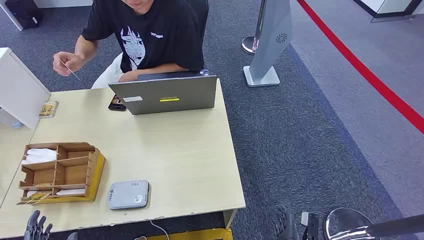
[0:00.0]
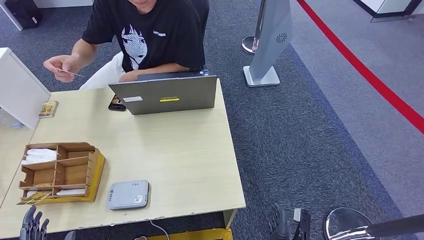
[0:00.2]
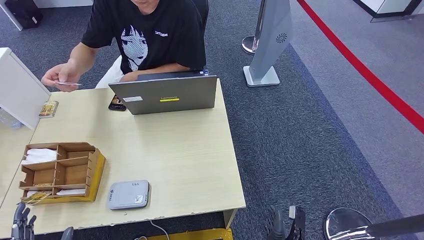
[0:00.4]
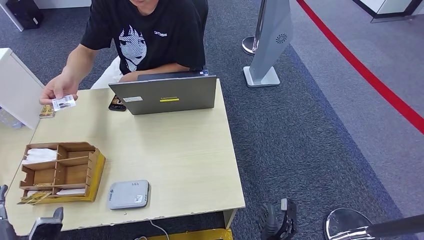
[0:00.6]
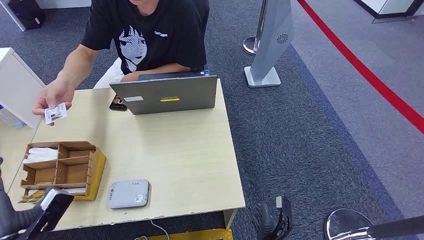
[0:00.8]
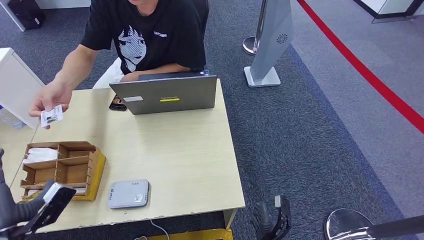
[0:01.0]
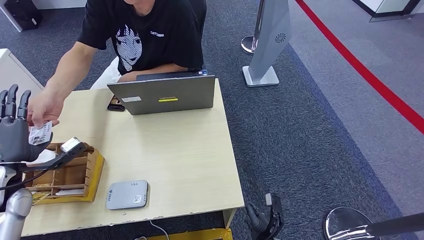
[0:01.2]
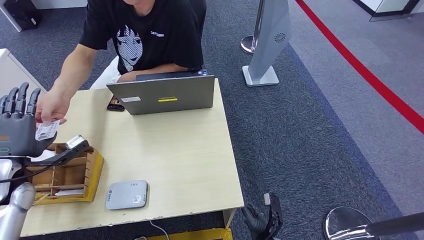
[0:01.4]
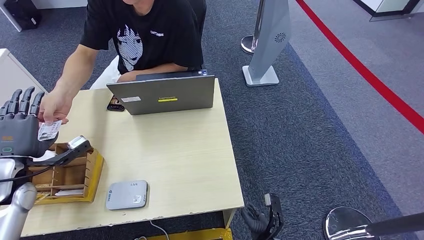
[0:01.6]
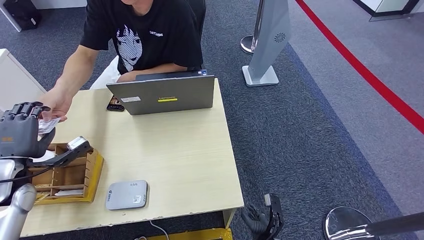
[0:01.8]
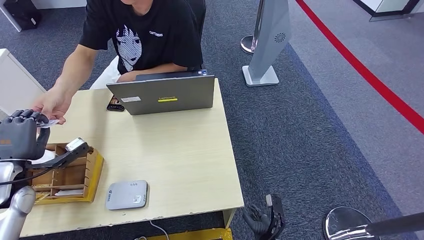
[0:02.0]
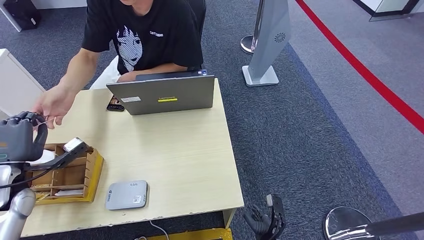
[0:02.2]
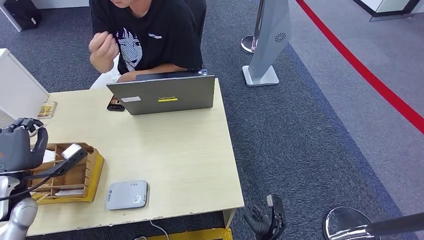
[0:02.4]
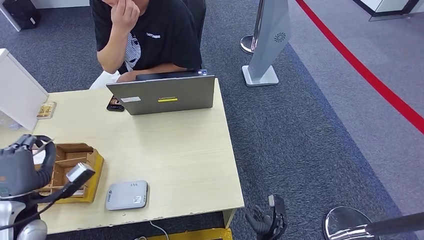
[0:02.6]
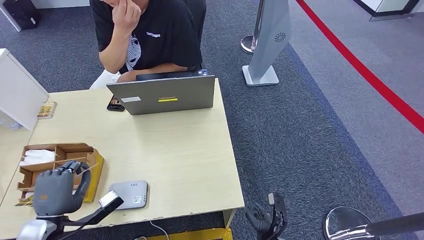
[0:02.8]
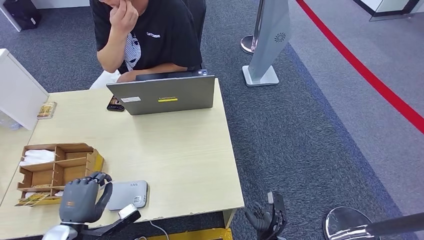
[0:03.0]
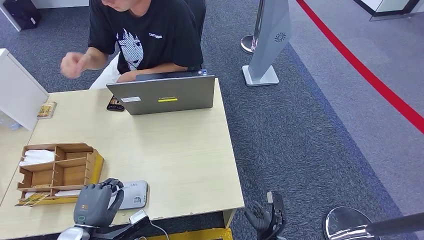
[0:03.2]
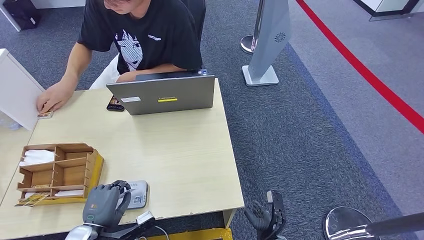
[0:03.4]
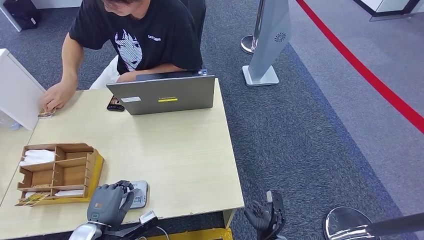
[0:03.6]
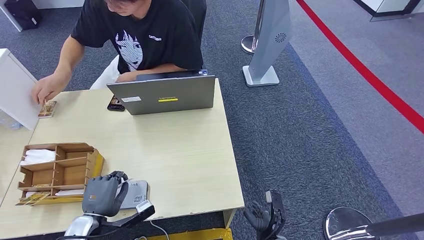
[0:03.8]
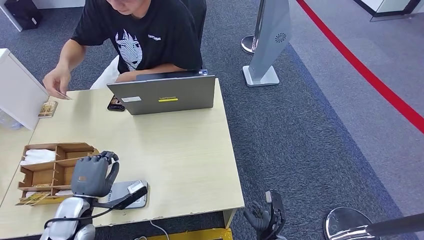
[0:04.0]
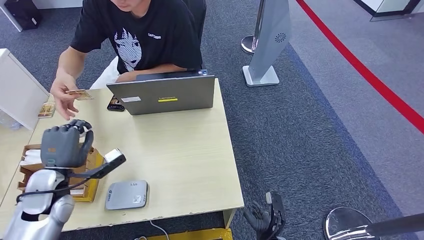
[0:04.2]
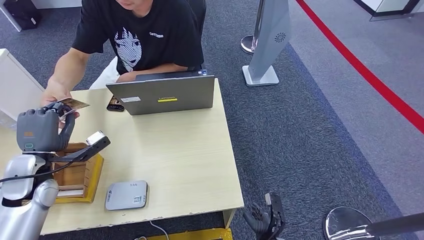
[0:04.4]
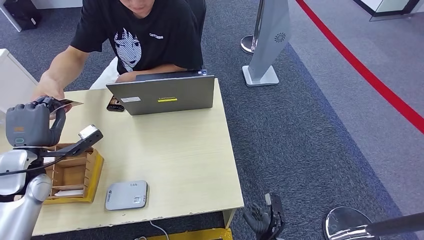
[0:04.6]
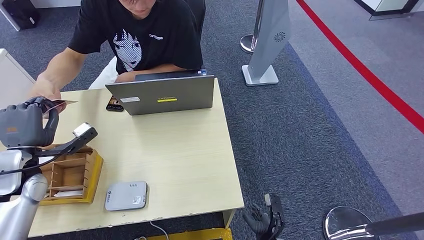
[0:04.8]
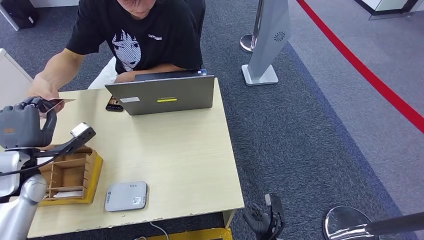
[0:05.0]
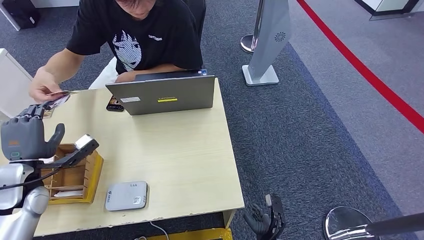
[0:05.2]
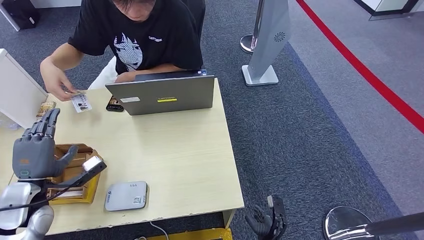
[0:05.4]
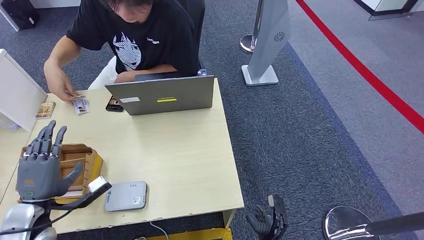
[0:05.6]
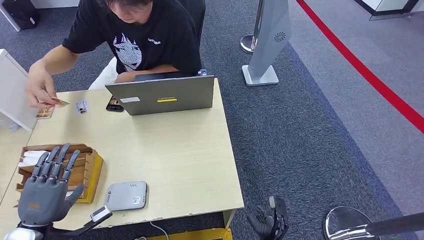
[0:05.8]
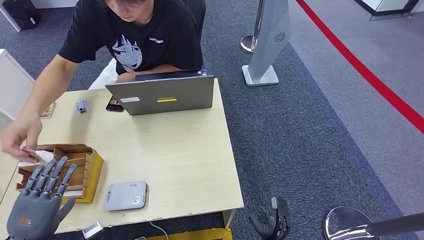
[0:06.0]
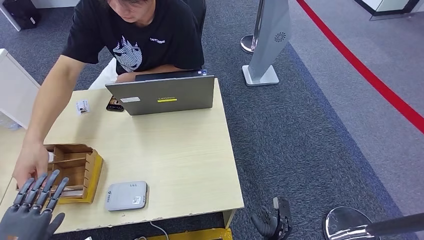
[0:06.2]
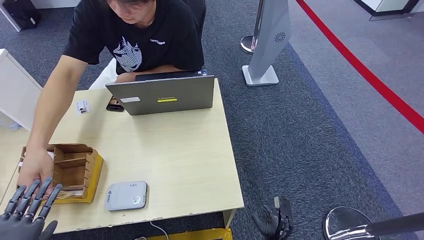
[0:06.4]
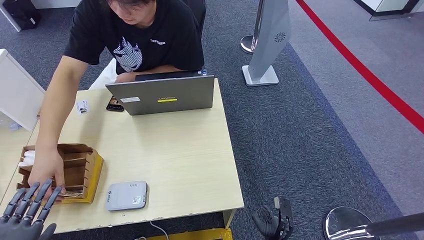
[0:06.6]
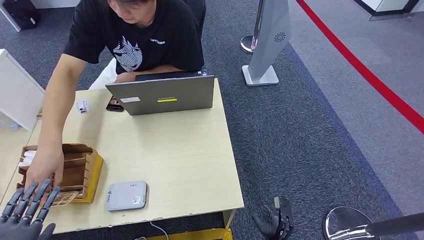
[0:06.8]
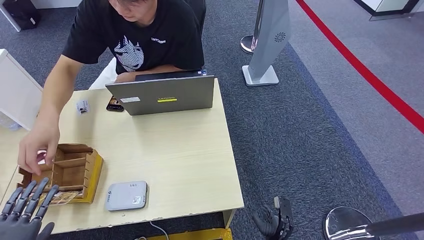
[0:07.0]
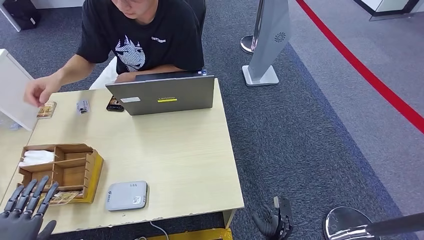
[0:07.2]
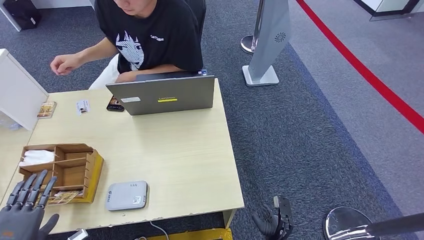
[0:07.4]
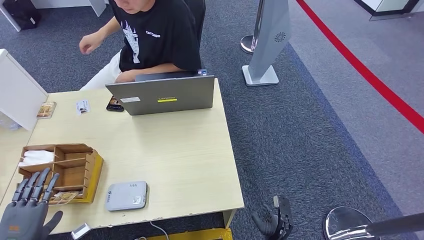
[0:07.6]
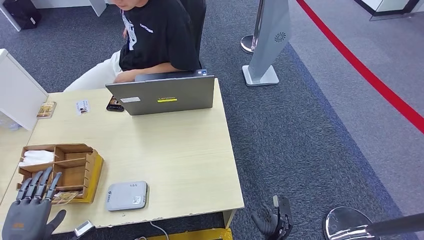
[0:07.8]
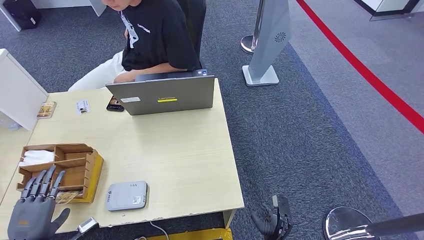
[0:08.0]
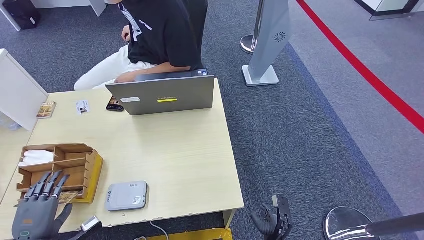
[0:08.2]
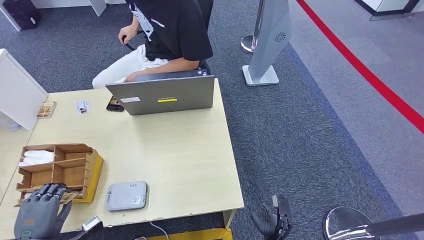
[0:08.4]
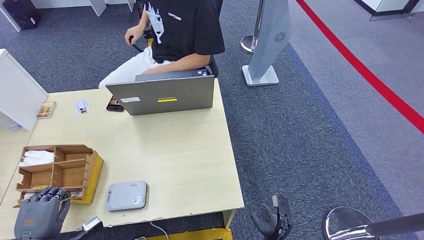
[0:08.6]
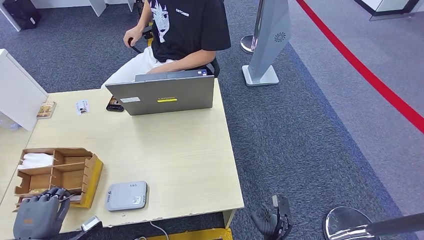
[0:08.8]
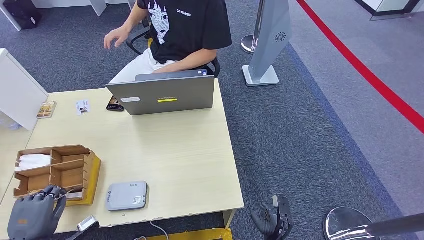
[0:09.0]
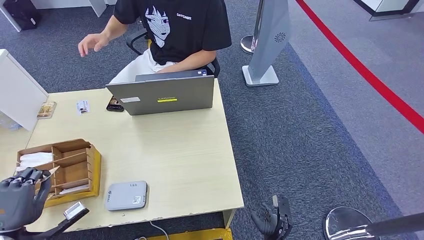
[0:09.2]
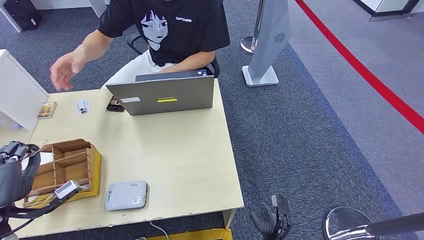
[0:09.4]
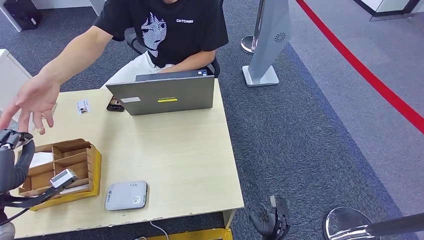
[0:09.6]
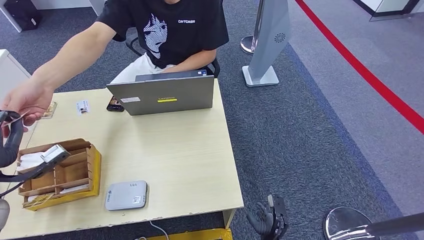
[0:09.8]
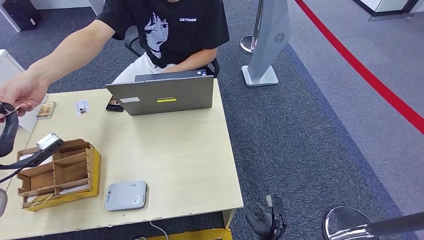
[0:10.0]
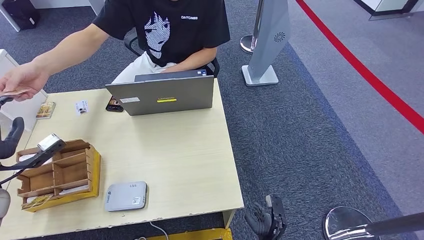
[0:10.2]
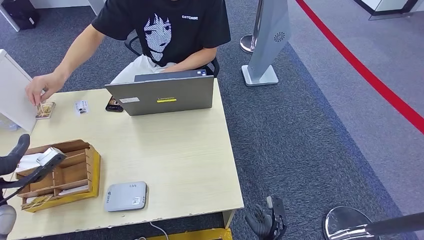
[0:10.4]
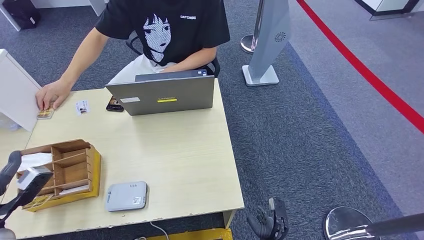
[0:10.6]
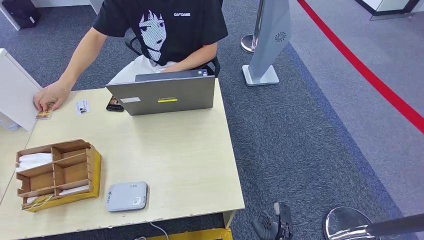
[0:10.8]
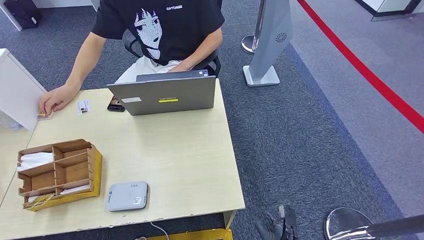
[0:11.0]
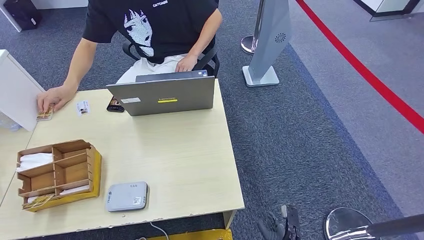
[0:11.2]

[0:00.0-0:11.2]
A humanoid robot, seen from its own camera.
Step, 0:00.0 to 0:03.0: Take the ID card from the person's hand.
Step, 0:03.2 to 0:03.8: Place the ID card on the card reader.
Step, 0:04.0 to 0:06.2: Hand the ID card to the person.
Step, 0:08.4 to 0:09.4: Pick up the room key from the key card box.
Step, 0:09.6 to 0:11.2: Hand the room key to the person.
0:01.6 to 0:03.2: The left hand shifts some 25 cm backward, to the right and downward.
0:03.2 to 0:04.8: The left hand travels forward, upward and to the left by about 25 cm.
0:04.8 to 0:06.4: The left hand is displaced backward by some 25 cm.
0:06.4 to 0:08.0: The left hand shifts about 5 cm forward.
0:08.0 to 0:09.6: The left hand heads upward and forward, covering approximately 15 cm.
0:09.6 to 0:11.2: The left hand is displaced backward by roughly 15 cm.

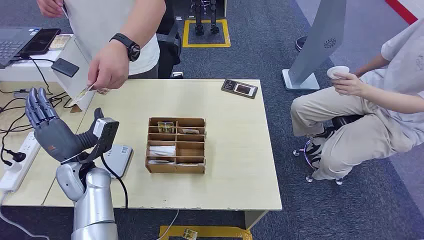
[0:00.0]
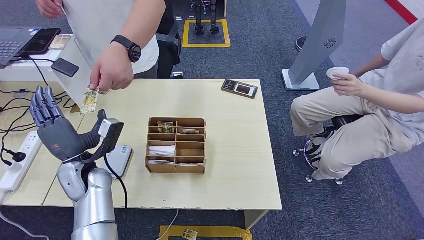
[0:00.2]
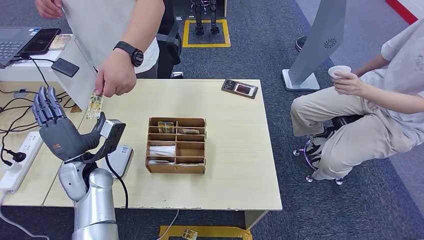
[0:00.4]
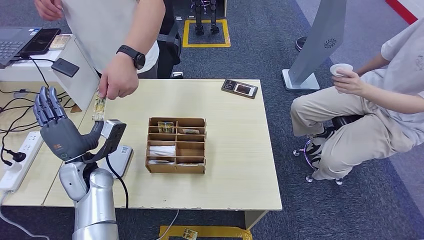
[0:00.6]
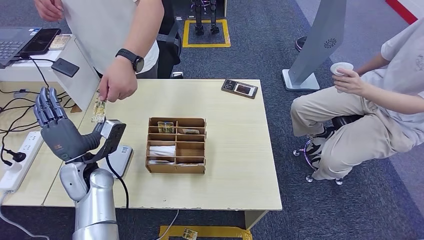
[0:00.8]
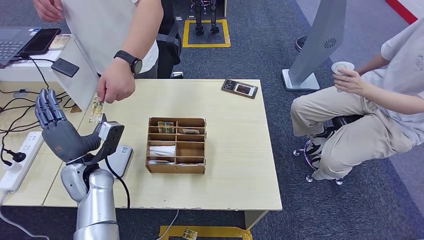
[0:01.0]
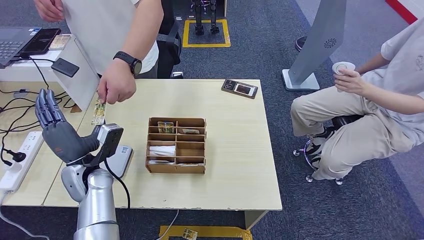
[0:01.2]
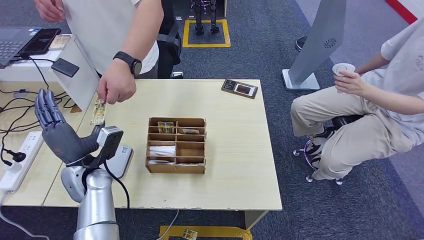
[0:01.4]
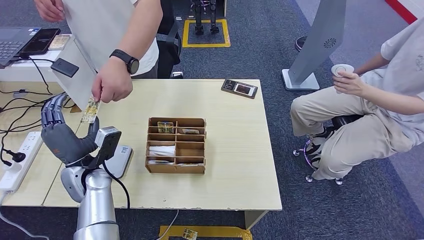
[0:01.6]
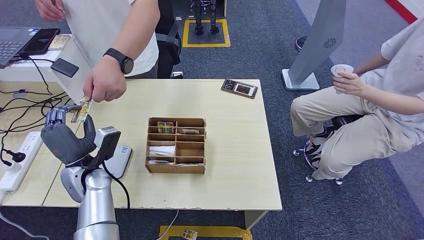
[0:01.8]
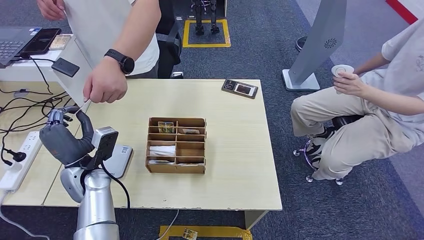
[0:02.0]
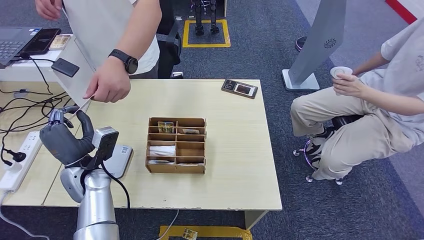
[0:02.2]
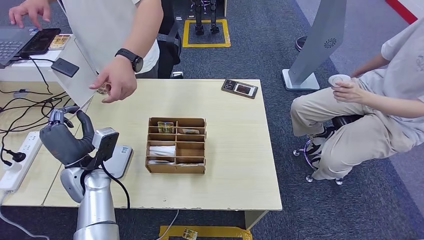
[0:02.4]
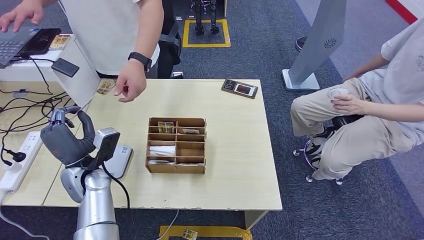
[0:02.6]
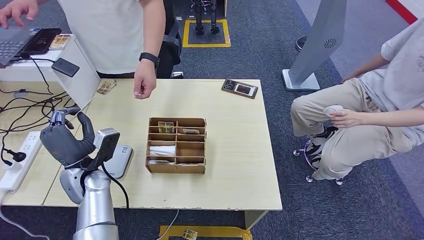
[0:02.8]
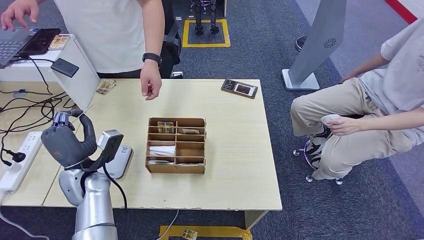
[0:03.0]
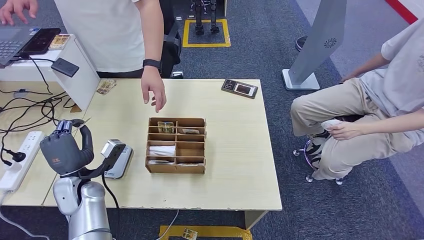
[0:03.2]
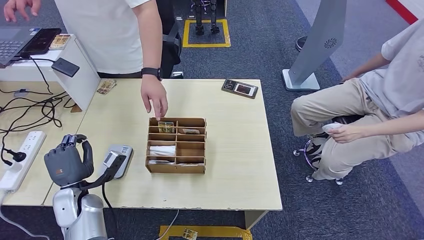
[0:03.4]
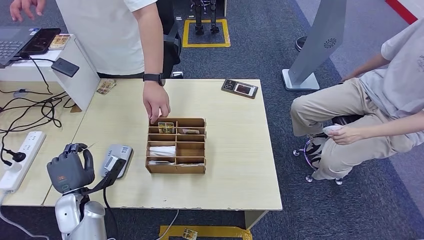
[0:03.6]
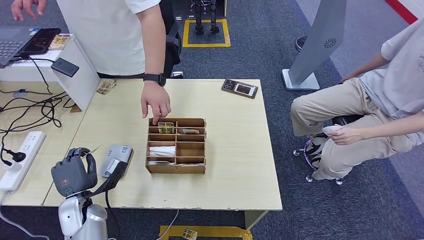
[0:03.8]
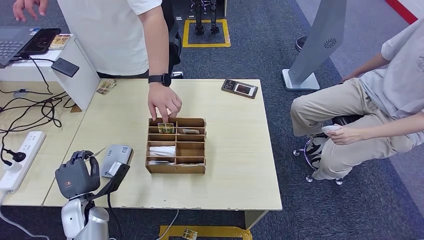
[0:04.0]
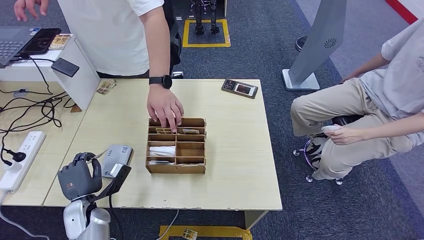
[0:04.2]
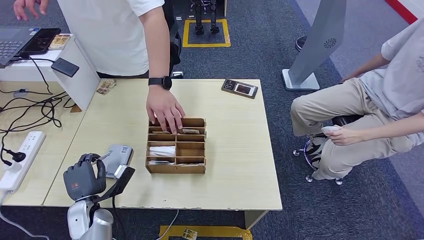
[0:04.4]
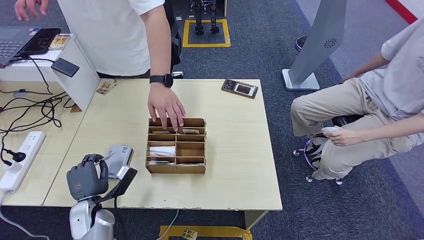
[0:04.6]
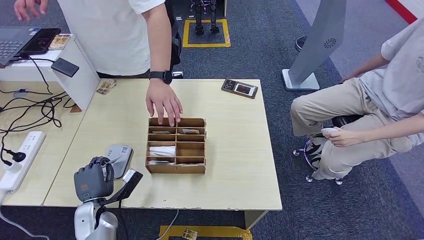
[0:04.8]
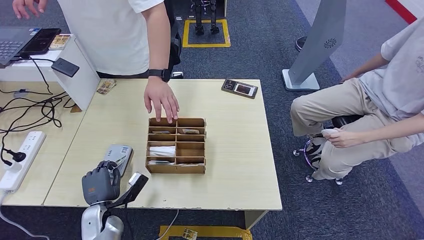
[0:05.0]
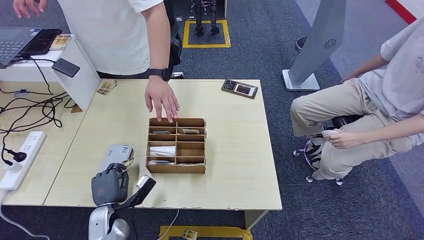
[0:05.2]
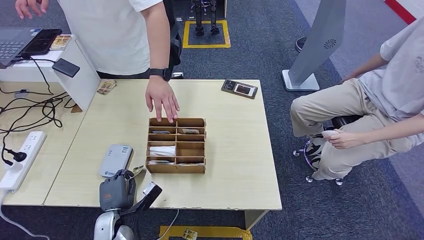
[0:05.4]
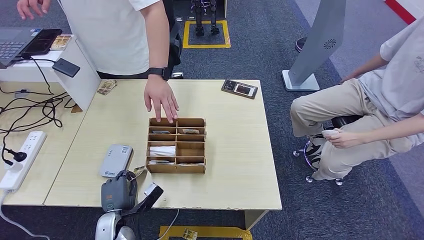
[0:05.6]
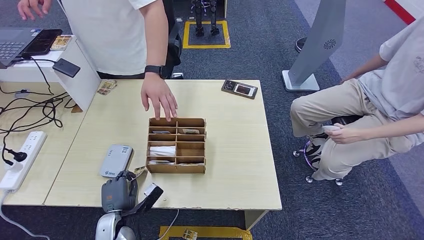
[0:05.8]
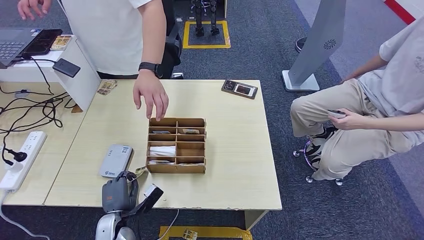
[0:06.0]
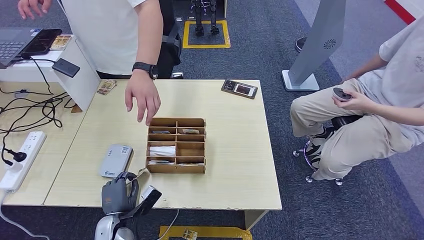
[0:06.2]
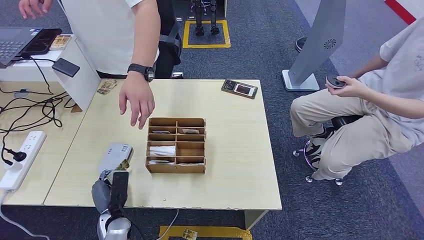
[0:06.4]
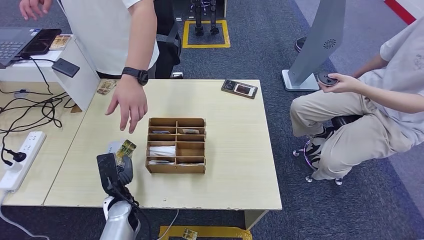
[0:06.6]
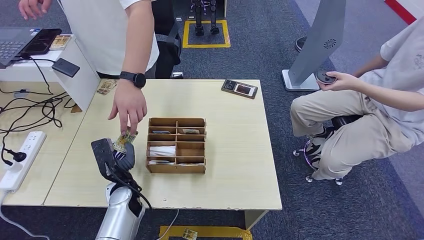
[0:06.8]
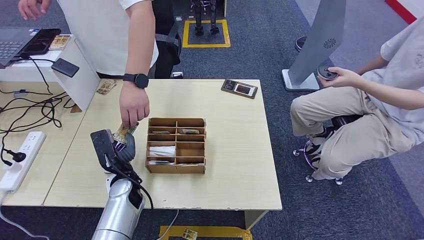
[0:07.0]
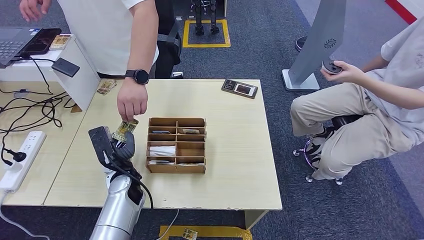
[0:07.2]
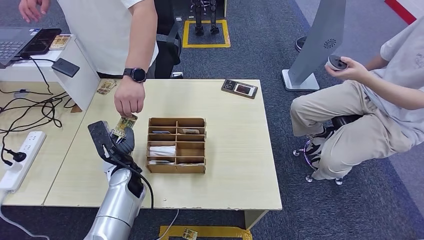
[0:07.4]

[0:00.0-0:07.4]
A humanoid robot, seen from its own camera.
Step, 0:00.0 to 0:02.4: Take the ID card from the person's hand.
Step, 0:02.8 to 0:04.8: Place the ID card on the card reader.
0:01.4 to 0:03.0: Both hands stay about where they are.
0:03.0 to 0:04.4: The left hand heads downward and backward, covering approximately 15 cm.
0:04.4 to 0:06.0: The left hand goes approximately 10 cm to the right and downward.
0:06.0 to 0:07.4: The left hand goes some 15 cm forward and upward.
